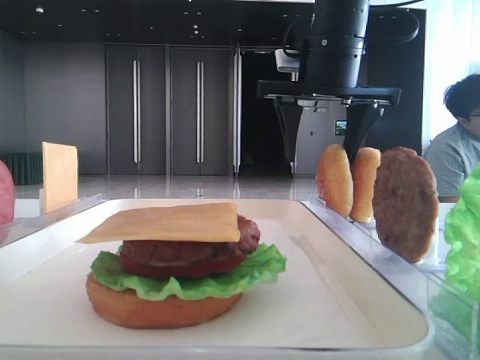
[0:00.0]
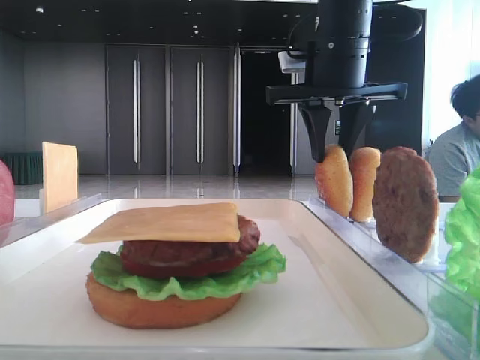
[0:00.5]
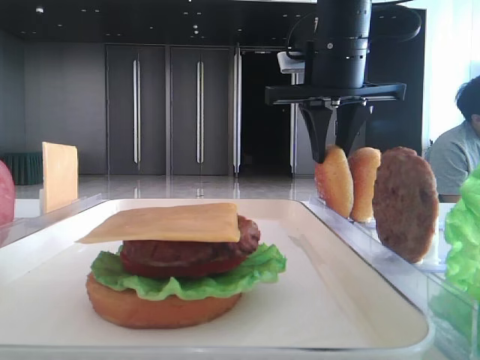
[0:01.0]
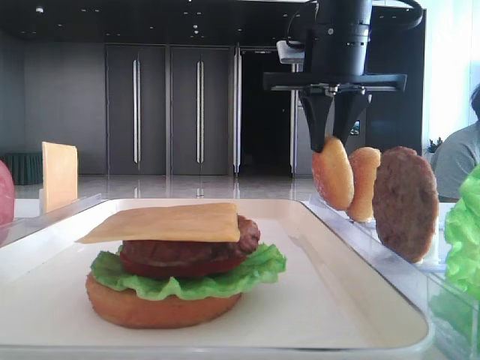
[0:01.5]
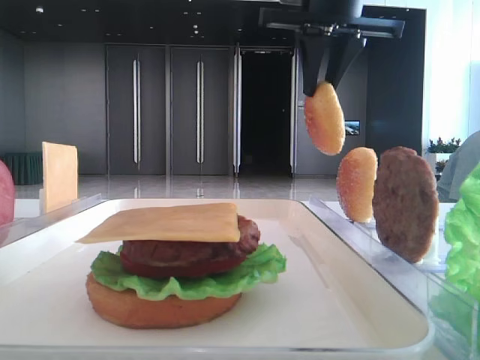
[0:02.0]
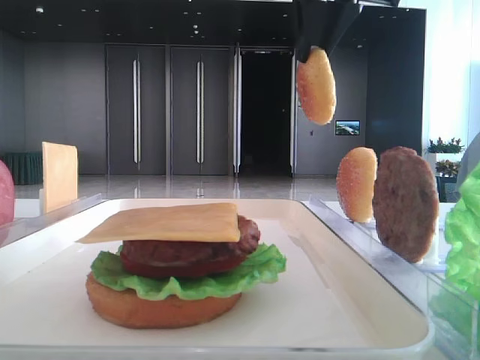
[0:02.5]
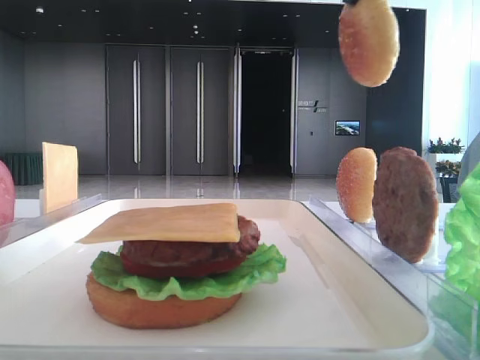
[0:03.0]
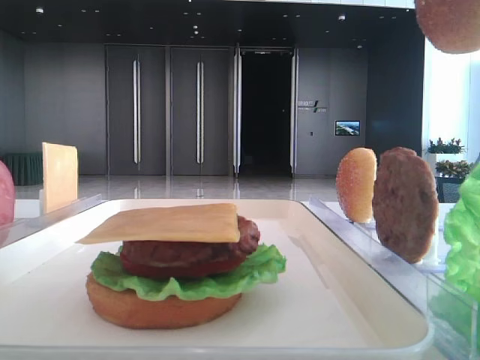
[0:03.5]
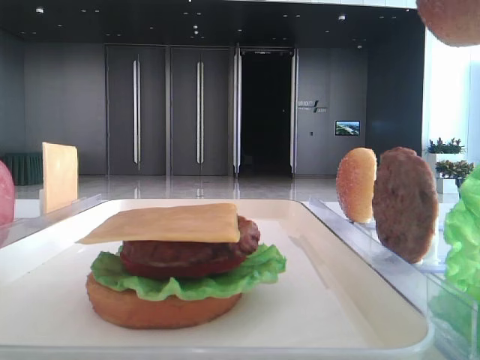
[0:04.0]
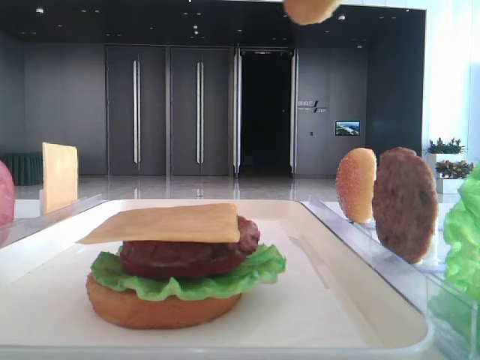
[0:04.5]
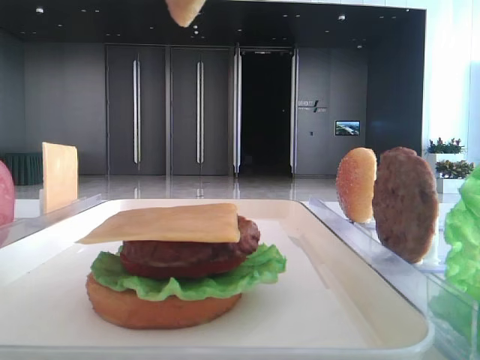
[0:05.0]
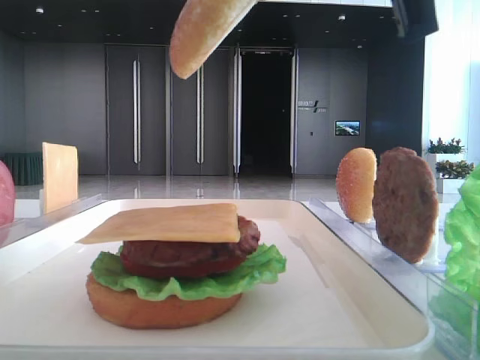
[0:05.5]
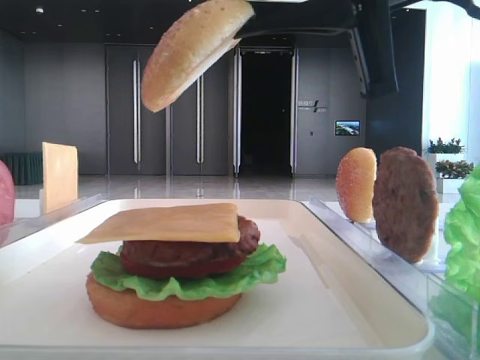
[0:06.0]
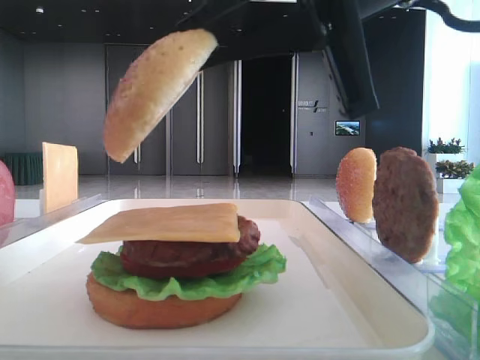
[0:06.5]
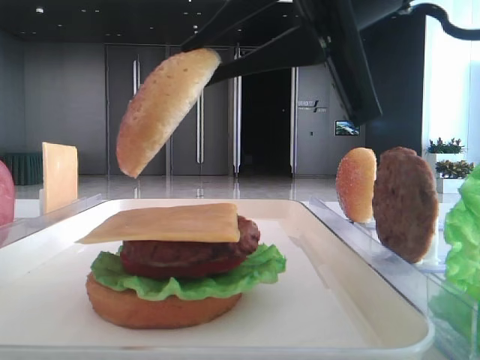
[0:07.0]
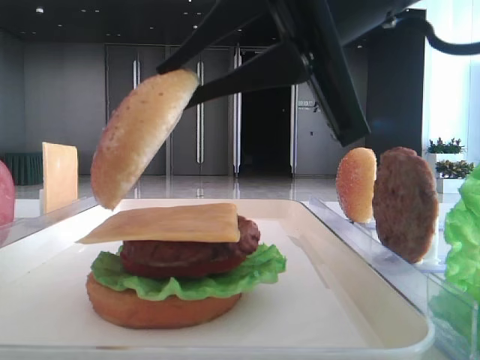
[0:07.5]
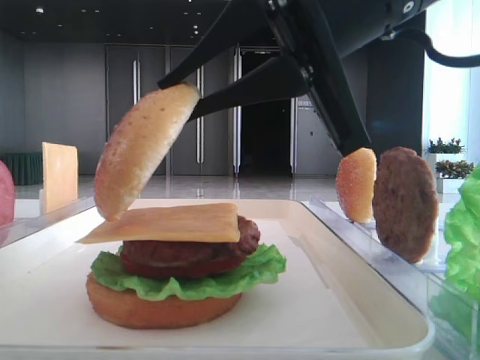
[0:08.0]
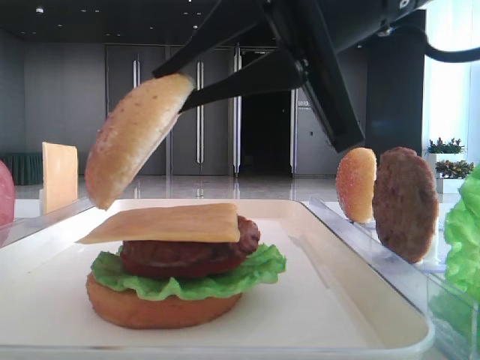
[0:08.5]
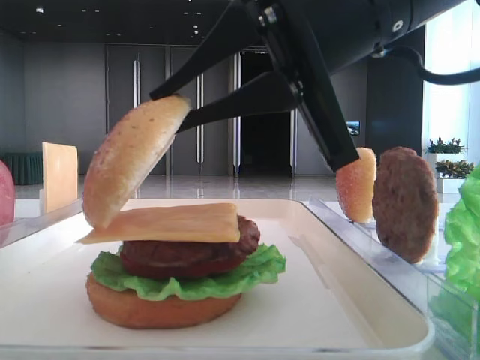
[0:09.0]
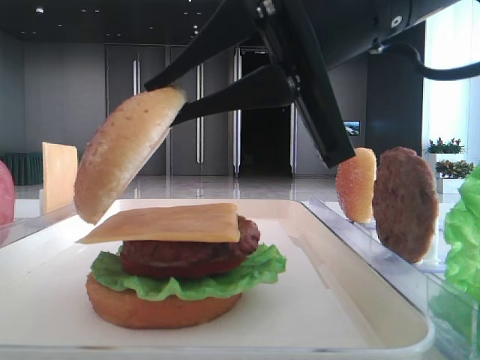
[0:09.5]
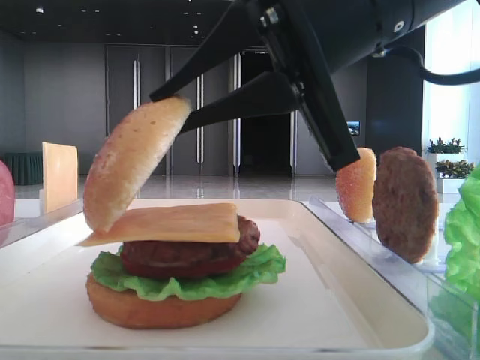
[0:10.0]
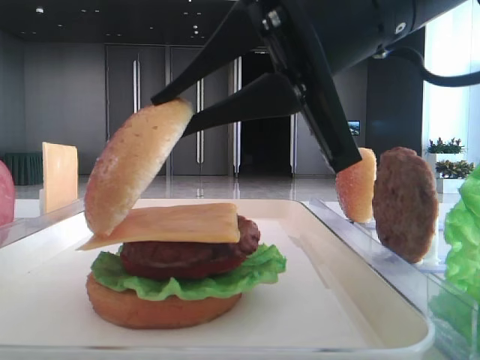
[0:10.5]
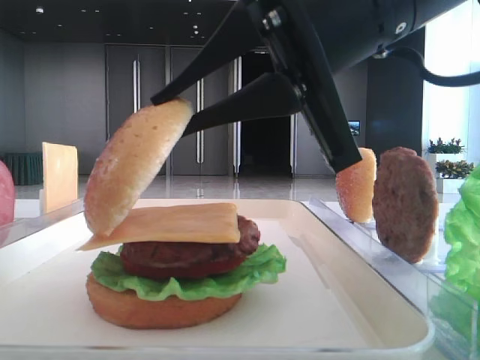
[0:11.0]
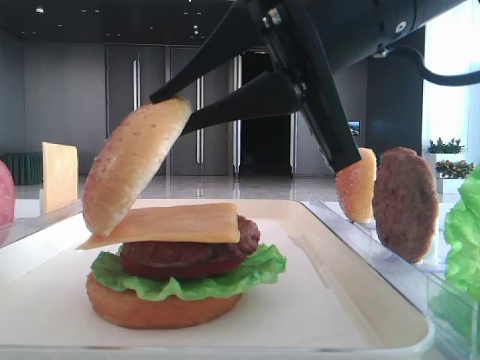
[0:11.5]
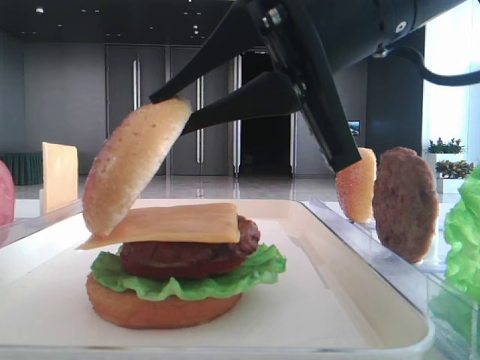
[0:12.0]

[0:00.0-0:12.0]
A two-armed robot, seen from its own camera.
0:00.0 to 0:02.0: The right gripper heads upward, covering about 10 cm, and closes.
0:02.0 to 0:04.0: The right gripper heads backward, covering some 25 cm.
0:04.0 to 0:06.0: The right gripper moves downward and forward, some 15 cm.
0:06.0 to 0:08.0: The right gripper ends up some 5 cm from where it was.
0:08.0 to 0:12.0: Both grippers stay put.

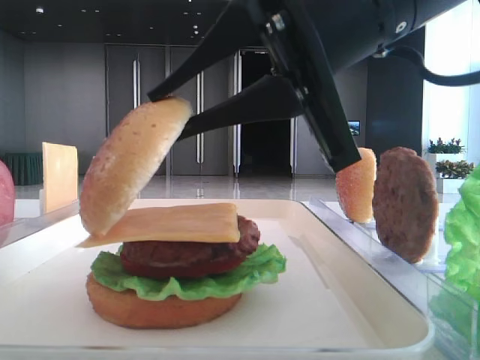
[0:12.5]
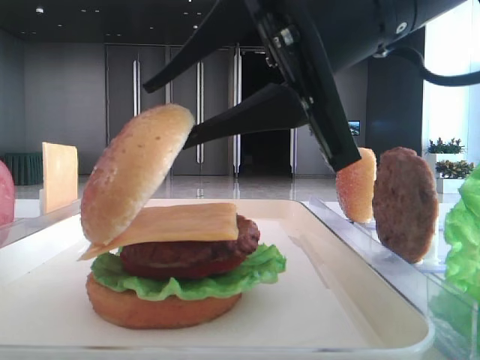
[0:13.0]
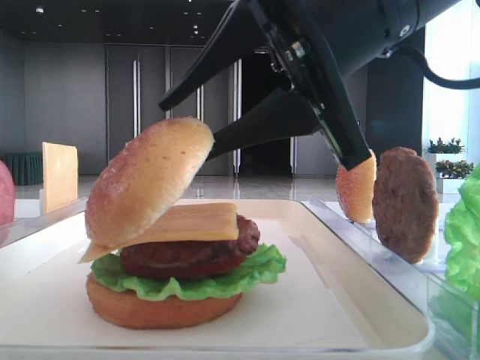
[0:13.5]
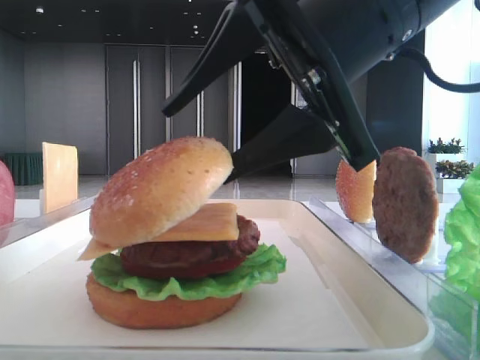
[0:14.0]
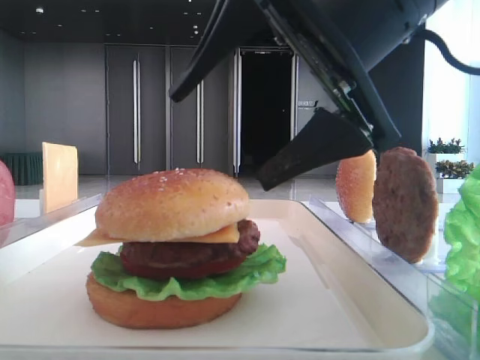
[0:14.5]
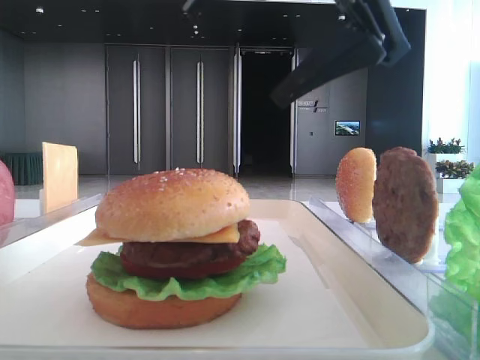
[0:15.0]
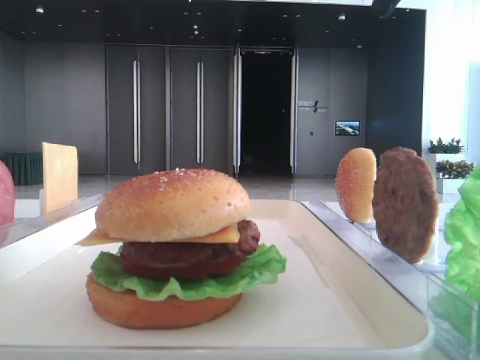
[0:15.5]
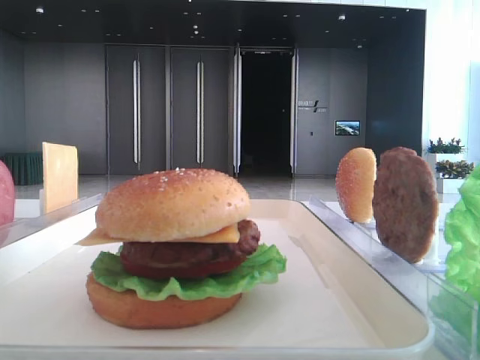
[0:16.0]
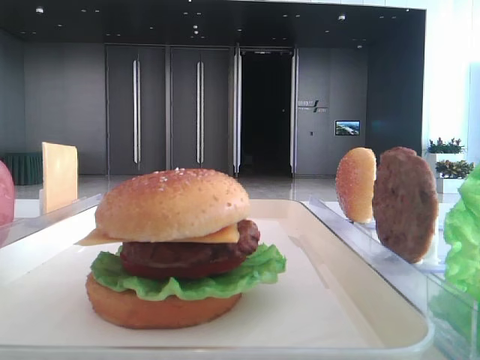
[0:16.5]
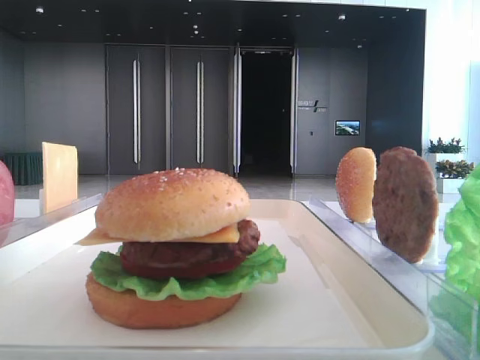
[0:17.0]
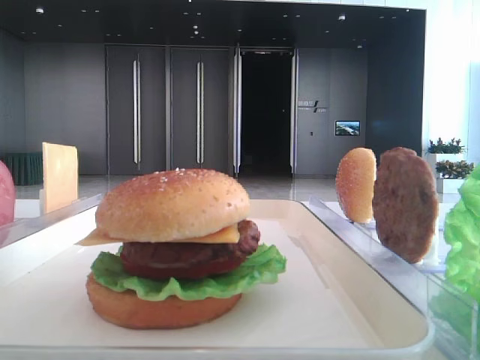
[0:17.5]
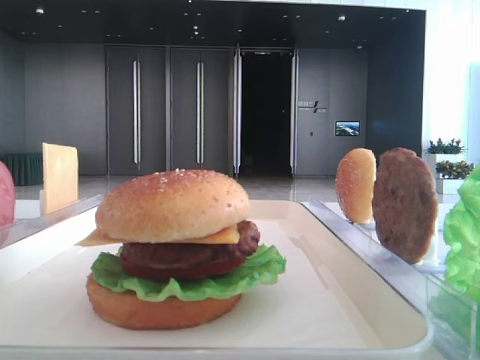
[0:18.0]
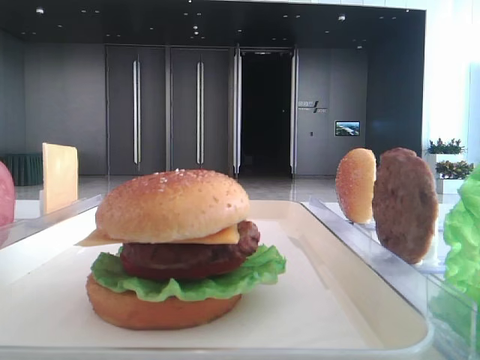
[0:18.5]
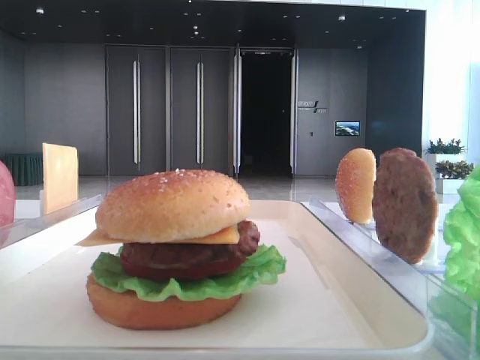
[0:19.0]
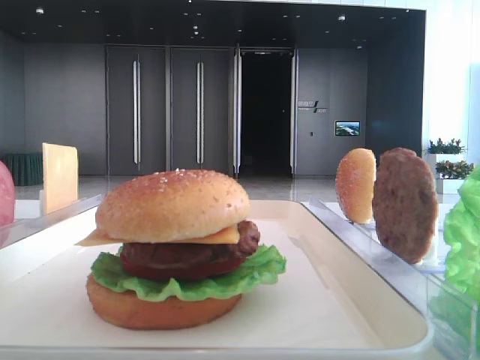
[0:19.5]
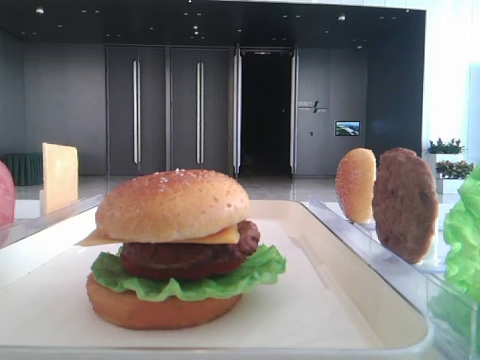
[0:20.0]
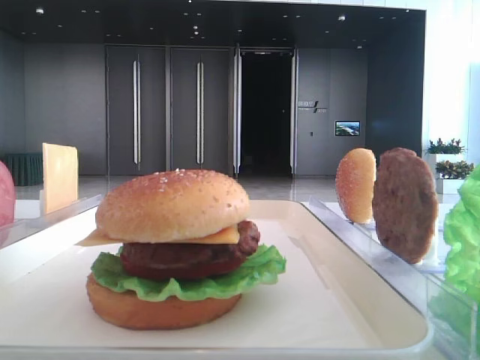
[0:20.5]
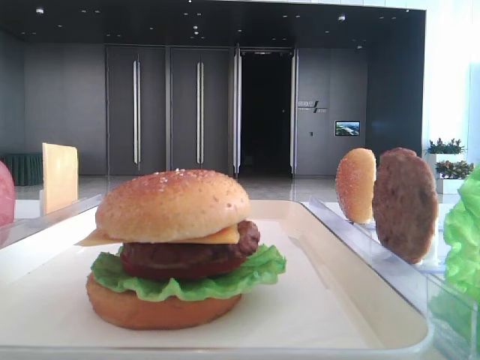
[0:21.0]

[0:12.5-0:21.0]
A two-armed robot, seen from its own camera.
0:12.5 to 0:14.5: The right gripper opens.
0:14.5 to 0:16.5: The right gripper heads to the right and upward, covering roughly 30 cm.
0:16.5 to 0:19.0: The right gripper moves backward, some 35 cm.

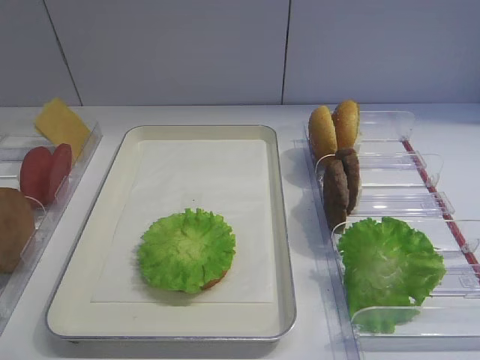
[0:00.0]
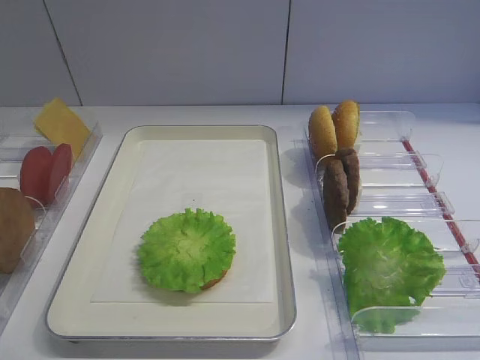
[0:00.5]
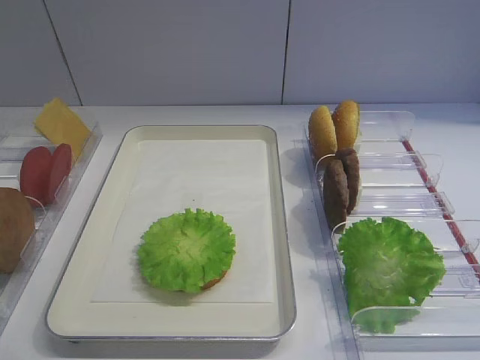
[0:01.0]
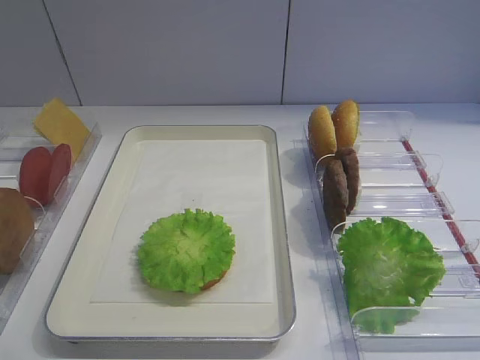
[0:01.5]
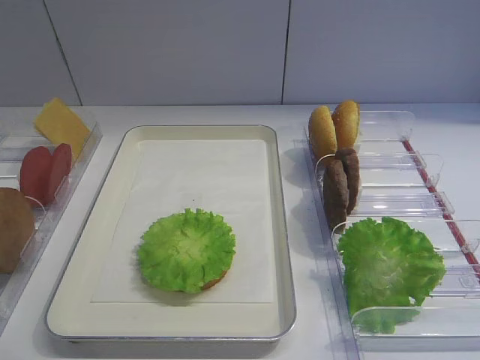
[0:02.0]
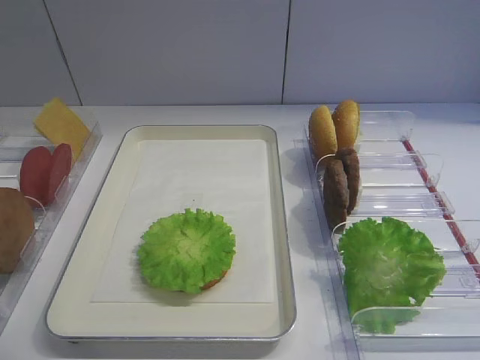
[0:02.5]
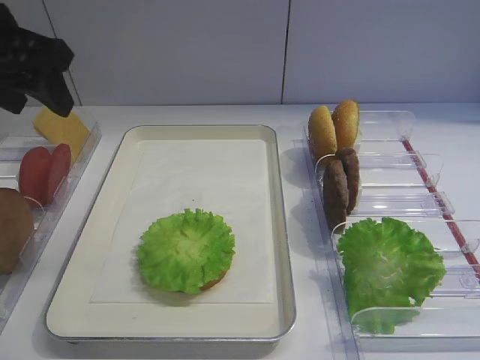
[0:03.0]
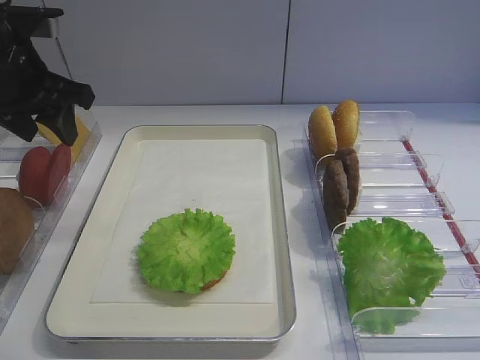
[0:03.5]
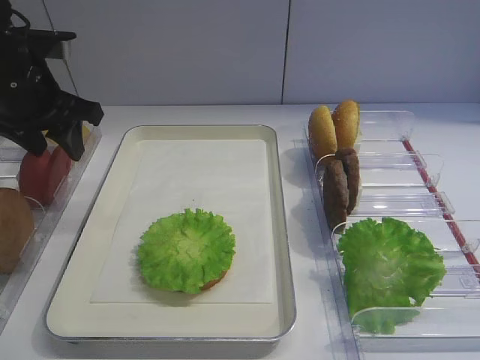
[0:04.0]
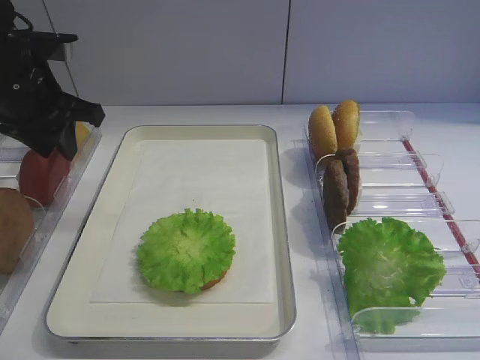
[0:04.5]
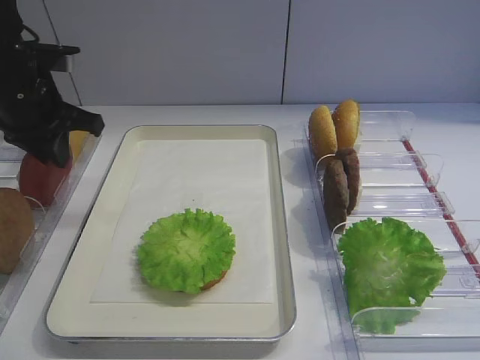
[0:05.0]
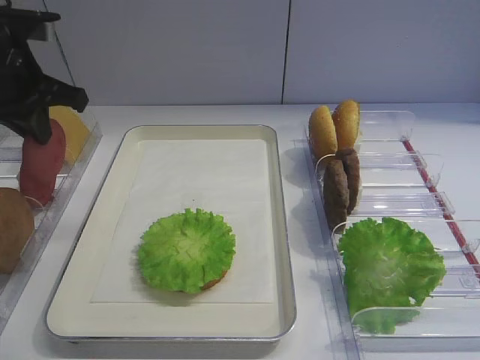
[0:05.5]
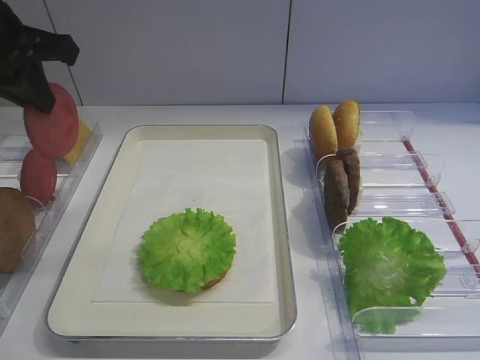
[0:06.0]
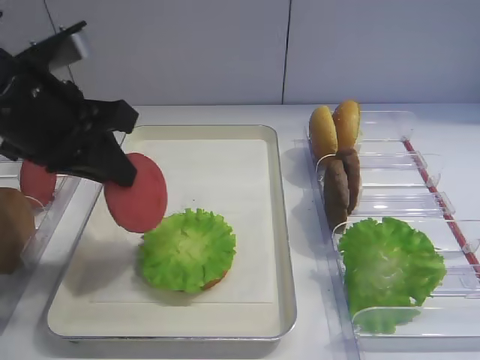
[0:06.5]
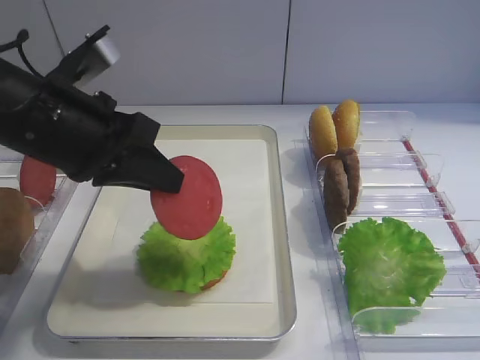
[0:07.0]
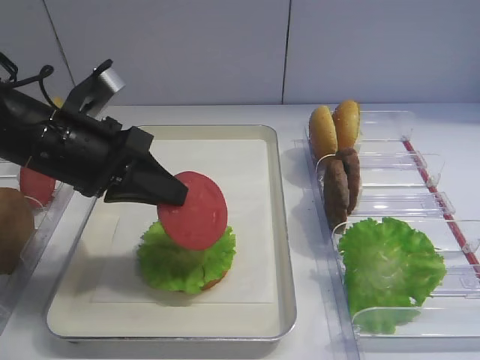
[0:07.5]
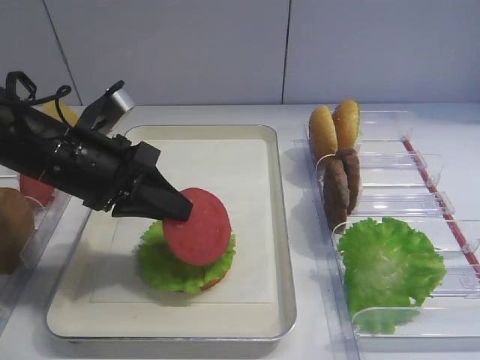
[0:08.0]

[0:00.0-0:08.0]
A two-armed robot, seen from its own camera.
Step, 0:00.0 to 0:05.5: Pick up the tomato slice with the left gripper.
0:02.0 to 0:04.0: The left gripper shifts roughly 35 cm forward.
0:04.0 to 0:06.0: The left gripper is displaced upward by about 10 cm, and closes up.
0:06.0 to 0:08.0: The left gripper heads downward and to the right, covering roughly 15 cm.
